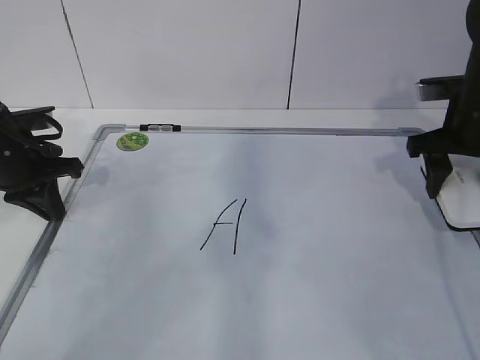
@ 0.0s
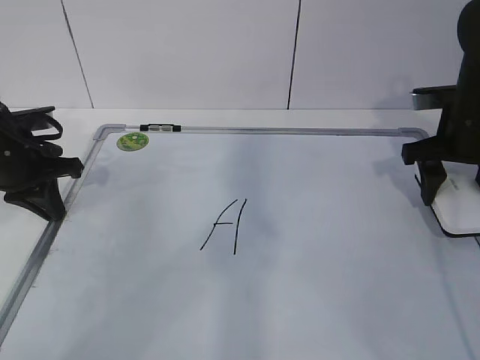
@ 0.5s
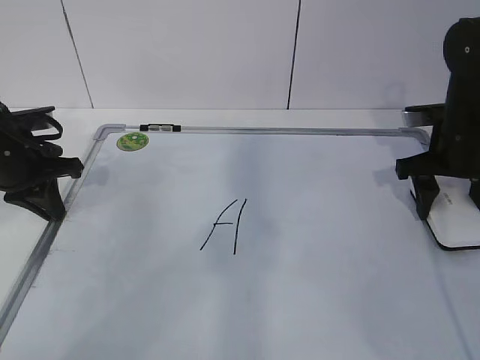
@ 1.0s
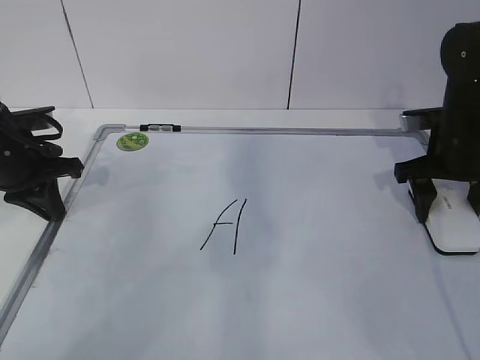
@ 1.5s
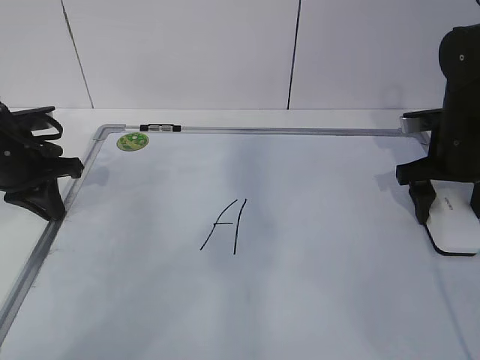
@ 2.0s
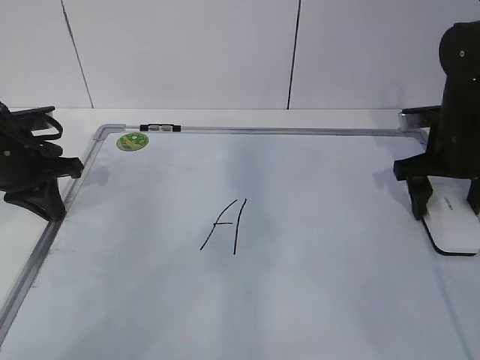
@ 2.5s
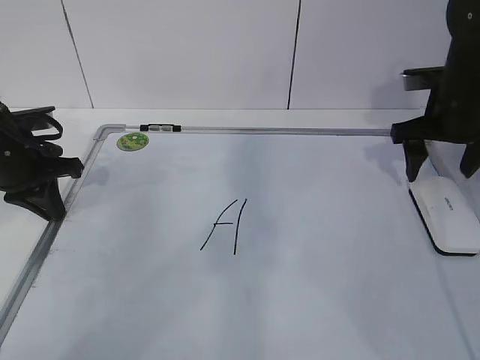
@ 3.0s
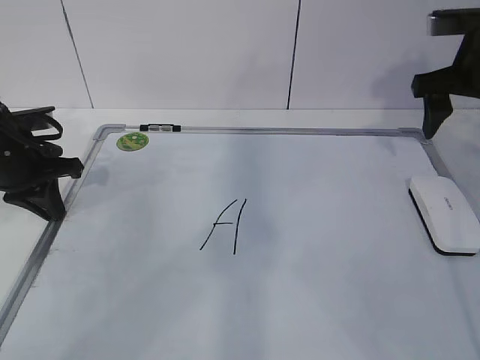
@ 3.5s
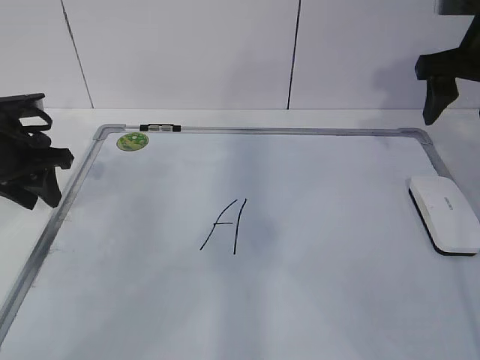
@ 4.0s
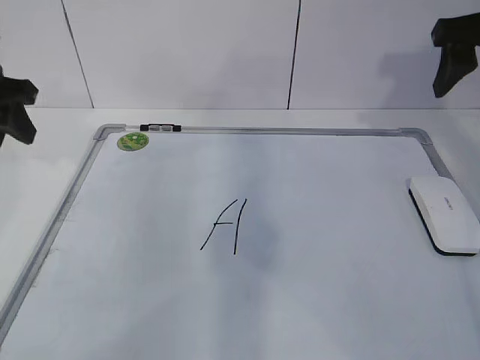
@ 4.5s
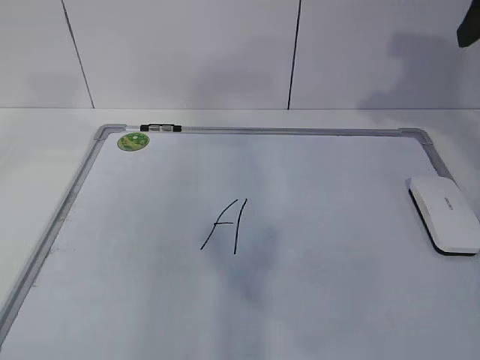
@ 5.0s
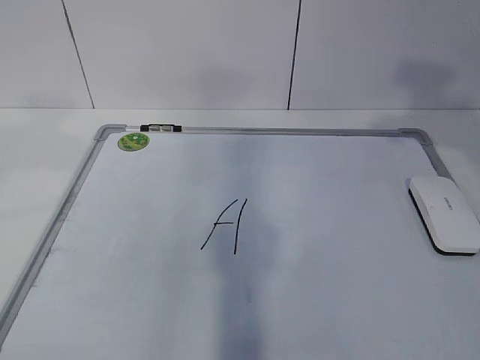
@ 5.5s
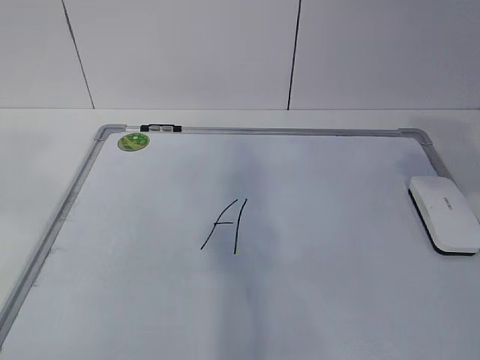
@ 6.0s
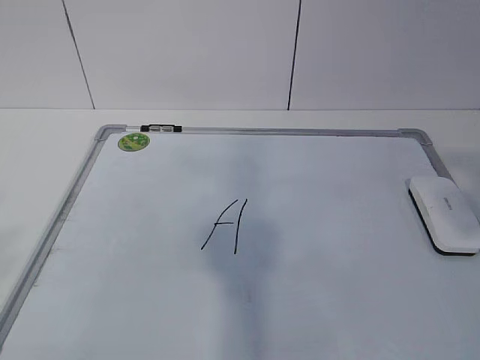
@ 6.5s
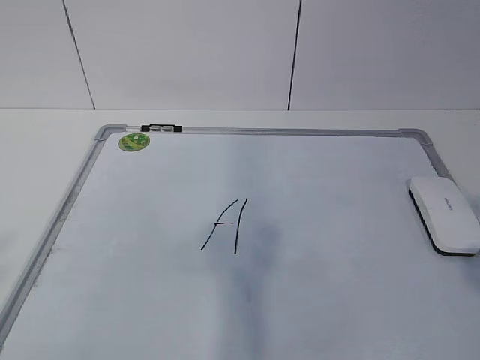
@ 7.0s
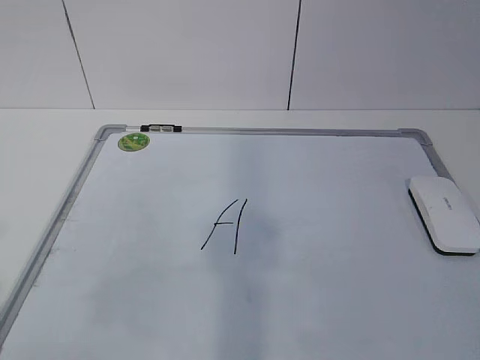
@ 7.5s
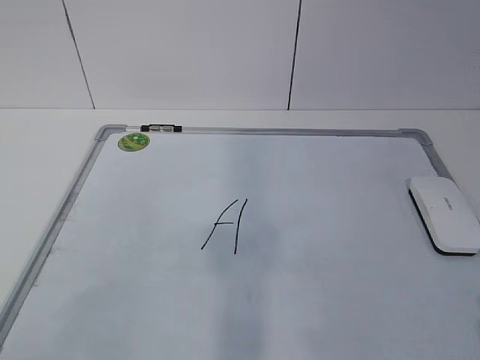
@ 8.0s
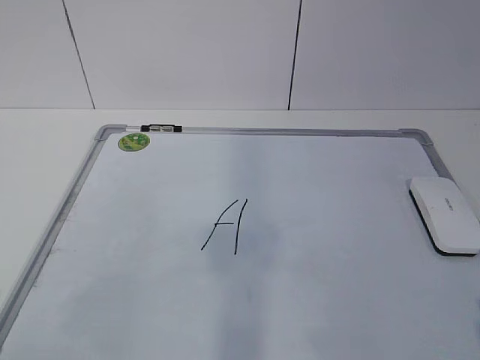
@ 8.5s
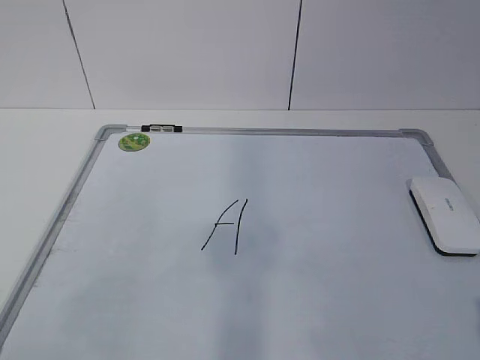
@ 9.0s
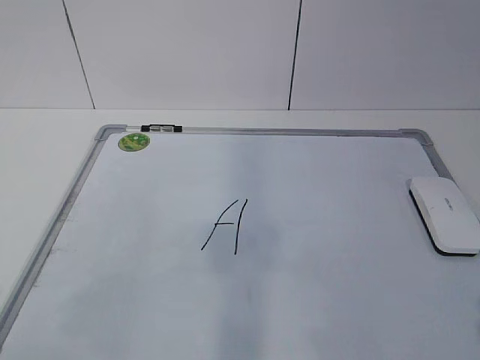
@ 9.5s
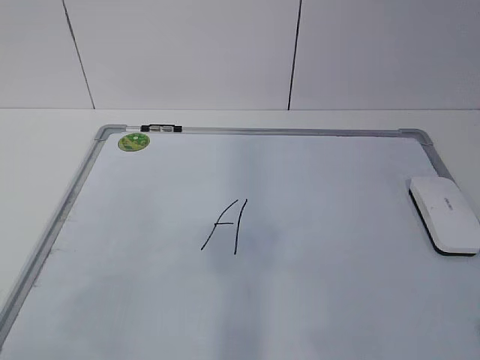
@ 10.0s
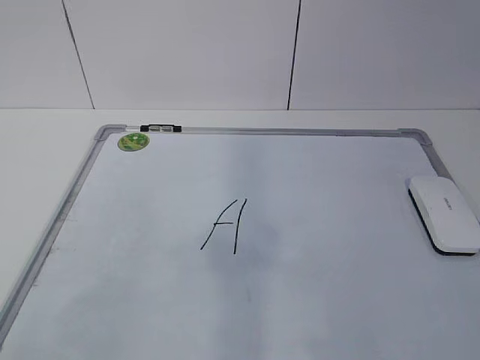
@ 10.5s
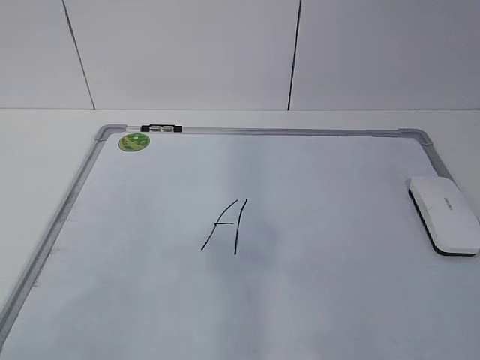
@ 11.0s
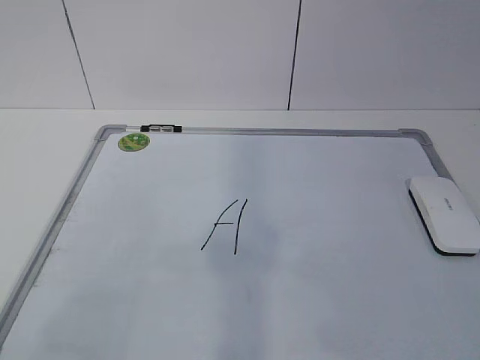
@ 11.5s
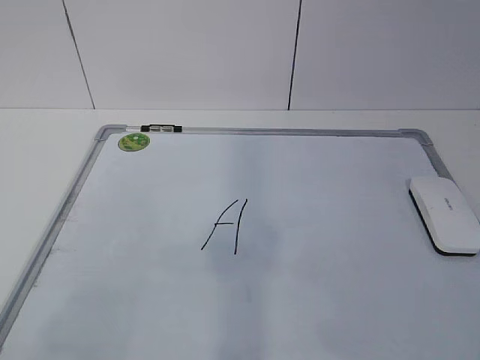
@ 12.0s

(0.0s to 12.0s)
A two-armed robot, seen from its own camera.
Task of the whole recording: pick up the eraser on the blackboard and erase the letter "a".
0.0s - 2.0s: The right gripper opens its fingers.
2.0s - 4.0s: The right gripper is displaced upward by some 15 cm, while the left gripper opens.
4.0s - 6.0s: The two grippers go roughly 35 cm backward and upward. The left gripper opens.

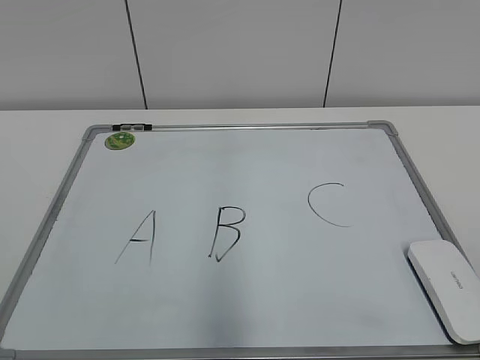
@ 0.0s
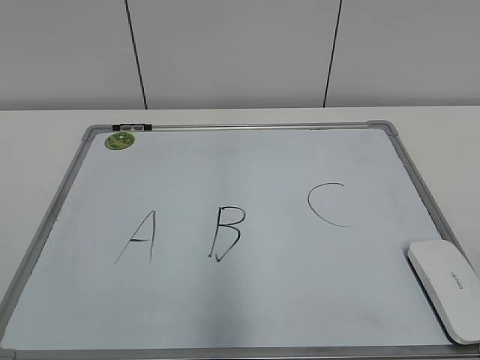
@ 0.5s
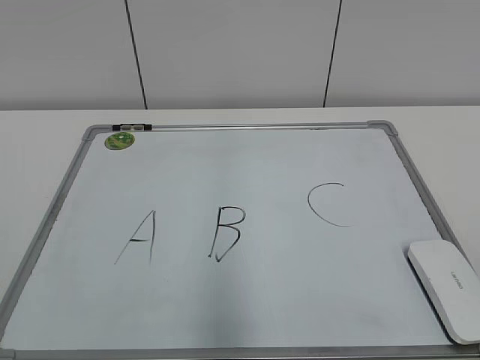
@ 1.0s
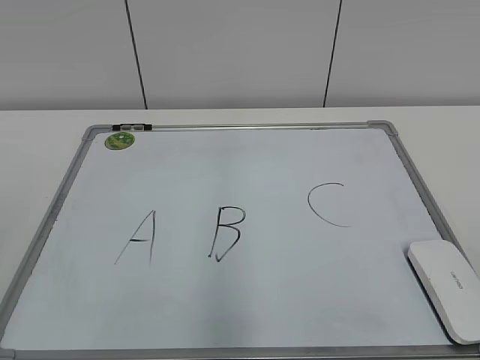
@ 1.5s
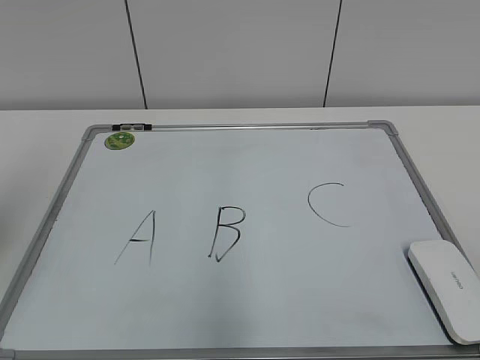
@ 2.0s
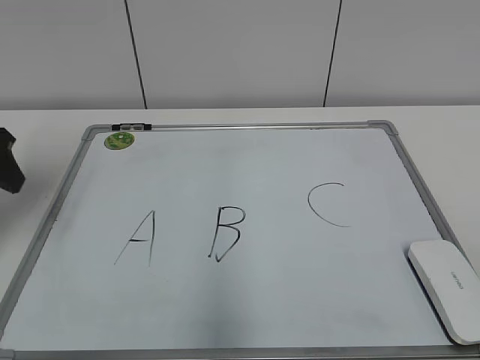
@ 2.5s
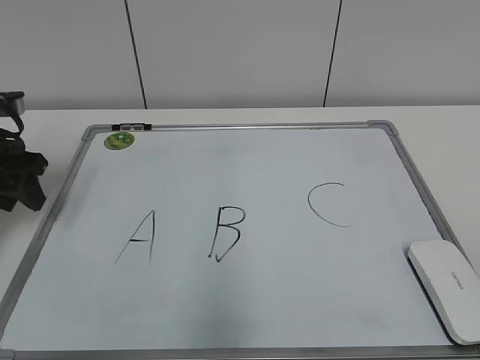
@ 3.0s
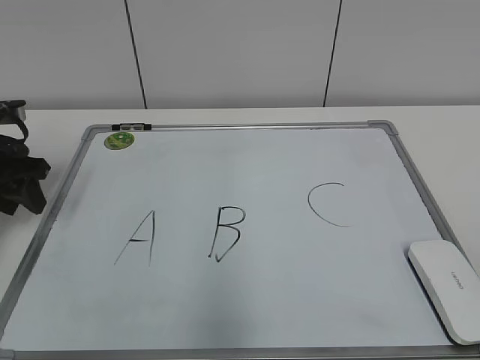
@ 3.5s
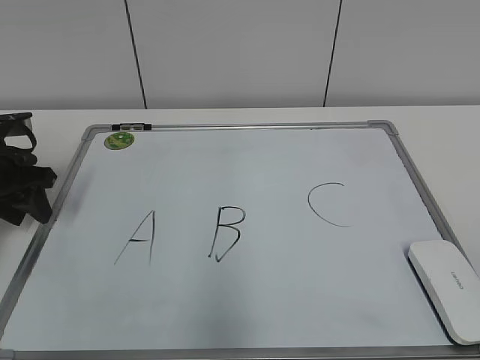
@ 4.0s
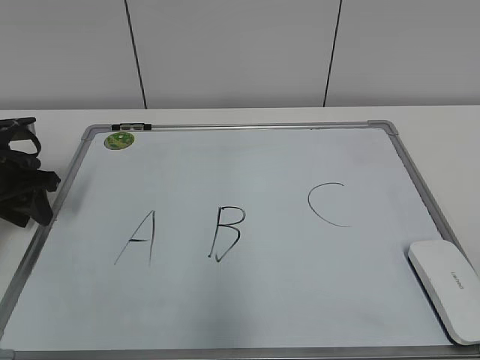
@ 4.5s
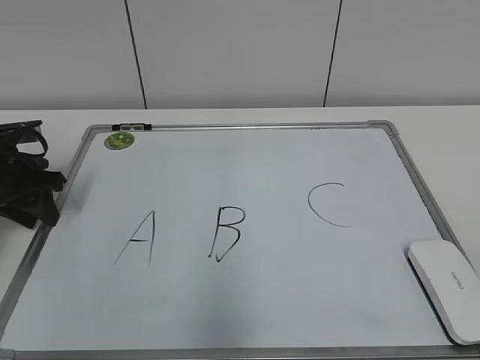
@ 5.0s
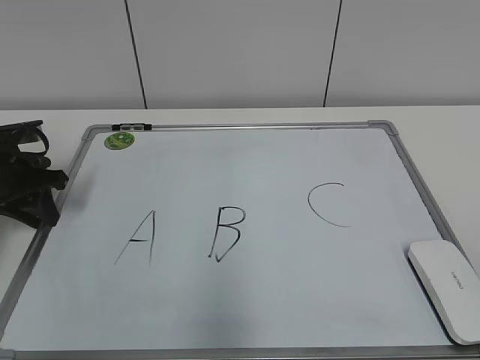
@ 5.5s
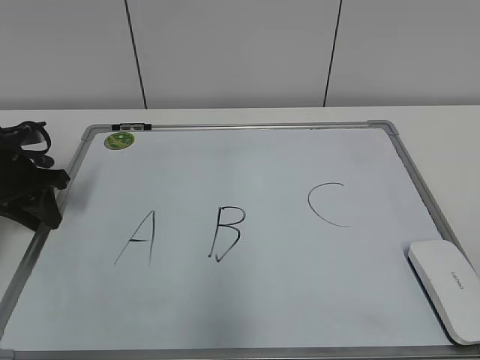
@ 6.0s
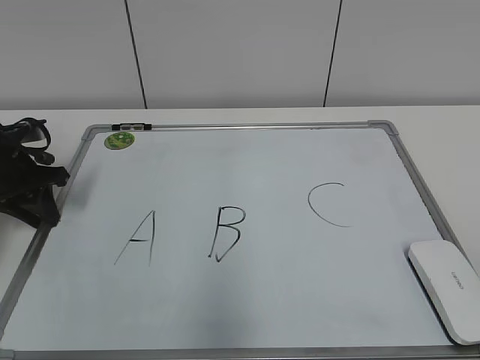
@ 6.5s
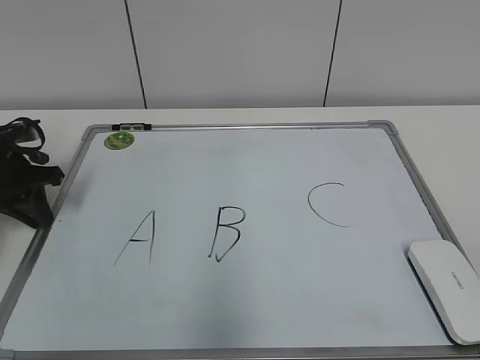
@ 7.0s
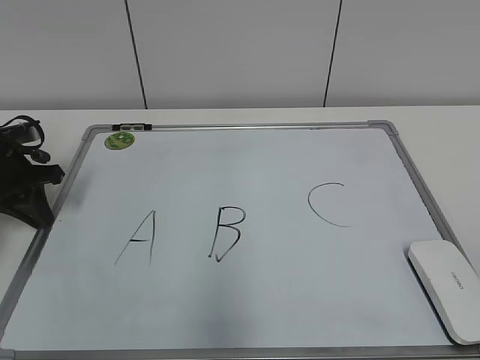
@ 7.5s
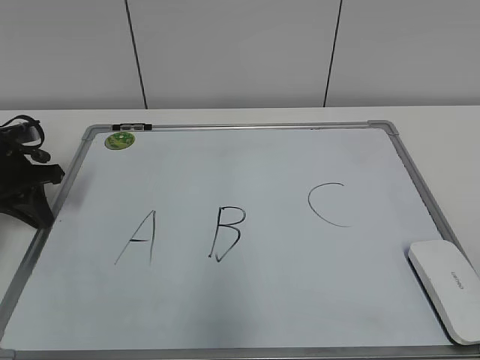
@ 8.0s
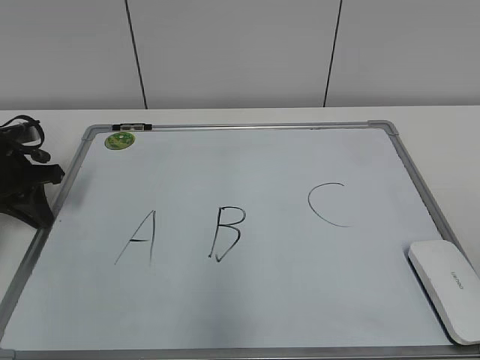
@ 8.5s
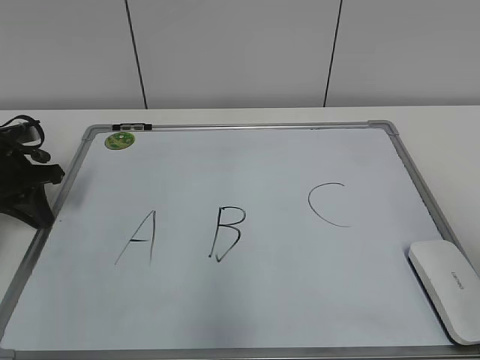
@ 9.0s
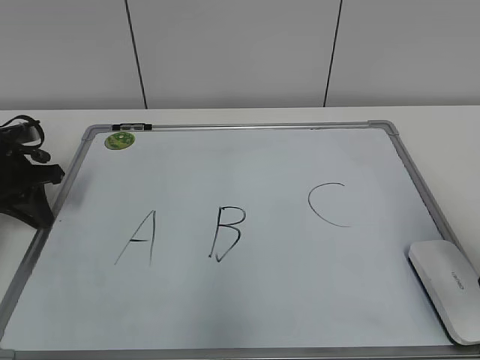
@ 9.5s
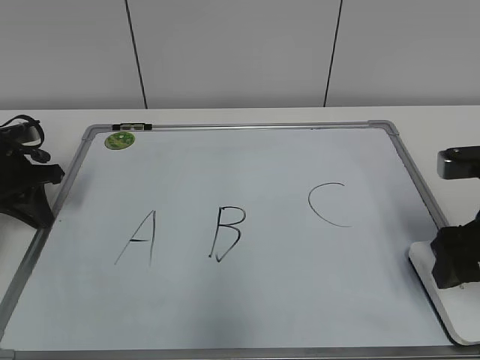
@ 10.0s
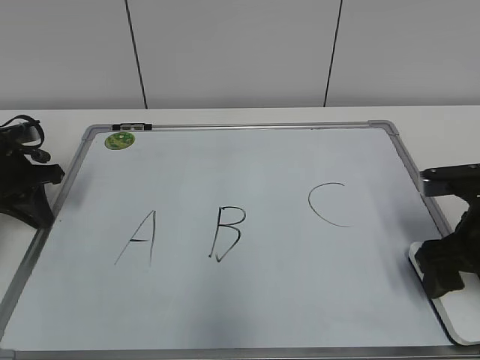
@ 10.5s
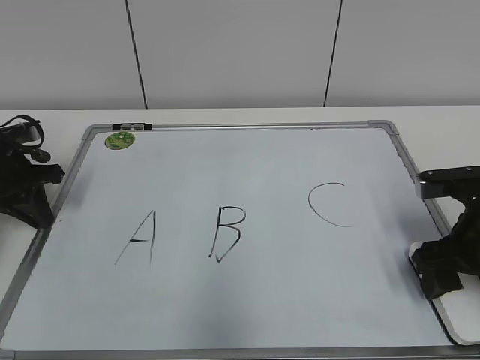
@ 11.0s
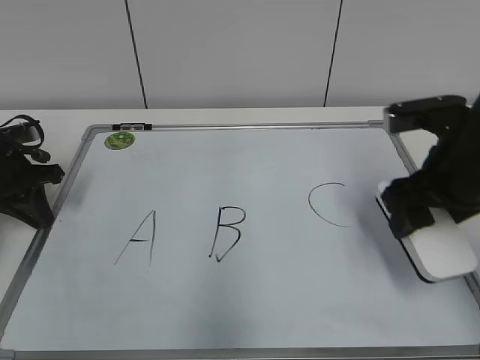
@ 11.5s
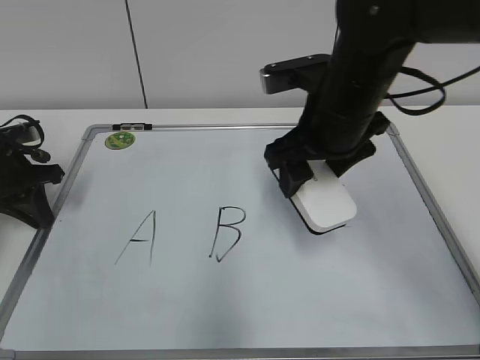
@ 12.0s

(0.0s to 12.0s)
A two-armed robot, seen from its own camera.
Task of the whole recording: pick up the eraser on the blackboard and erase the letter "B".
Step, 0.0s - 8.5s: Hold the drawing board steady with your left hand.
Step, 9.0s - 11.0s: Grab the eraser with your right hand.
2.0s - 4.0s: The left gripper is displaced forward and downward by approximately 25 cm.
4.0s - 6.0s: The grippers make only small movements.
6.0s - 8.0s: The left gripper closes its fingers.
8.0s - 10.0s: The right gripper heads forward, covering about 25 cm.
10.0s - 12.0s: The right gripper is displaced to the left and forward by about 15 cm.

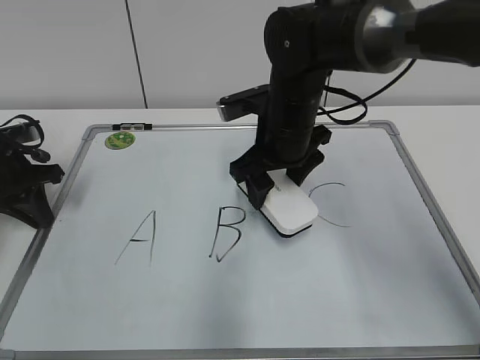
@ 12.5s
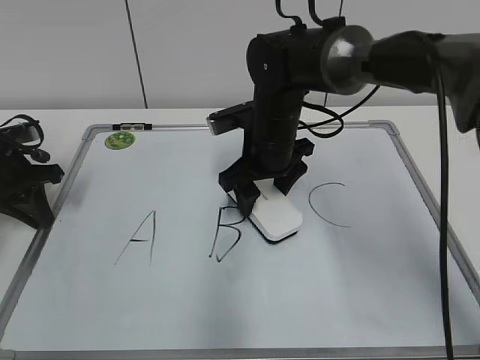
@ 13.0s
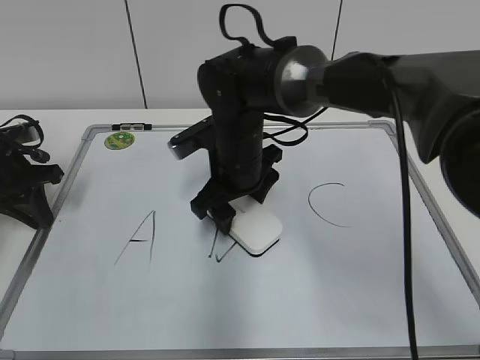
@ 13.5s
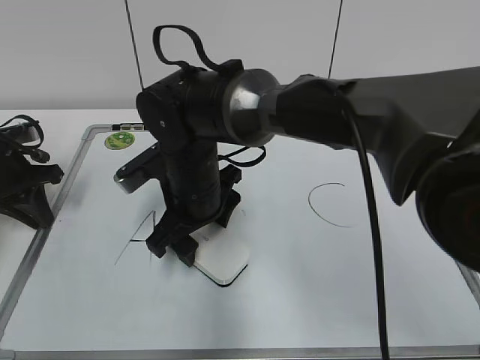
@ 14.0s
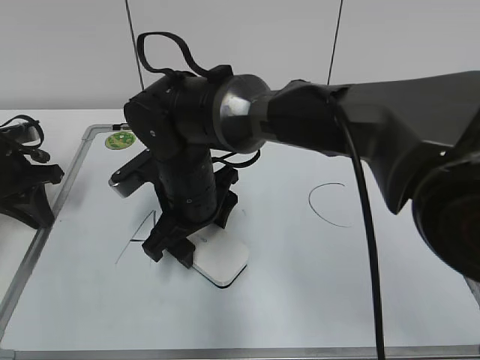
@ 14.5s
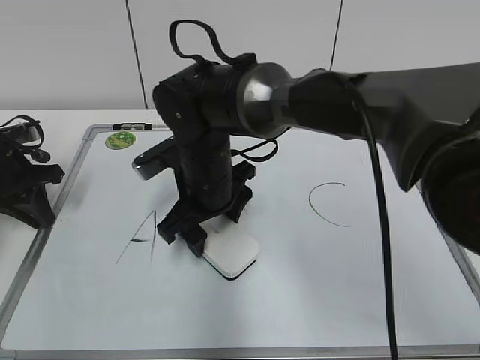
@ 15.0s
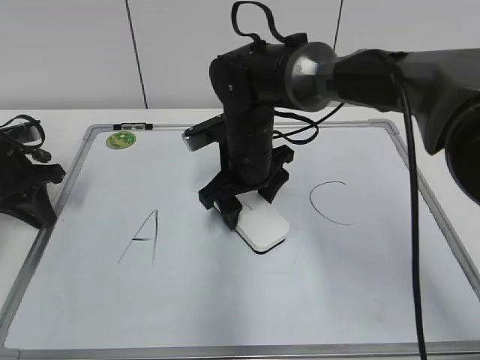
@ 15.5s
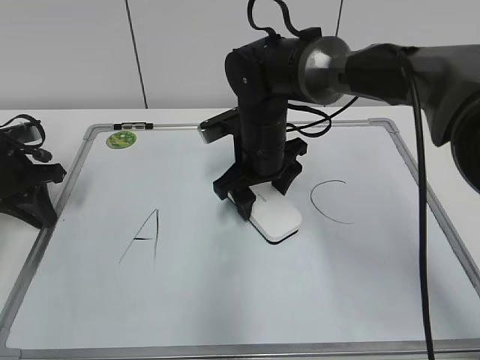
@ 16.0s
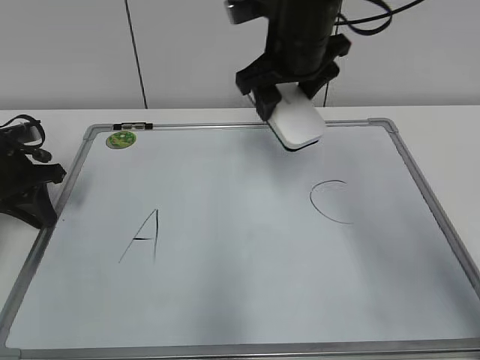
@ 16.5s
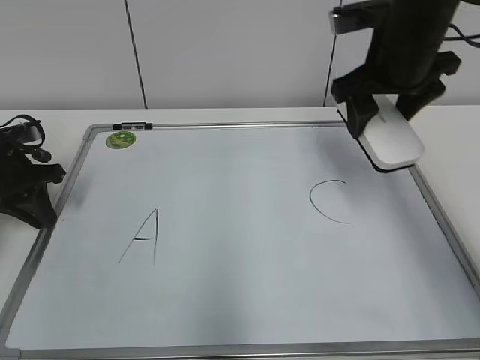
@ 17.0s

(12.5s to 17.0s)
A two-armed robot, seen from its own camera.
Task of the whole recording: pick up the eraser on the blackboard and erase the letter "B".
Step, 12.5s - 16.0s: Erase the letter B with your right hand.
12.5s - 14.5s: The right gripper shifts approximately 15 cm to the left and backward.
14.5s - 17.0s: The right gripper travels to the right and upward by approximately 25 cm.
